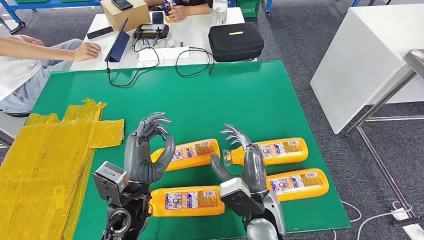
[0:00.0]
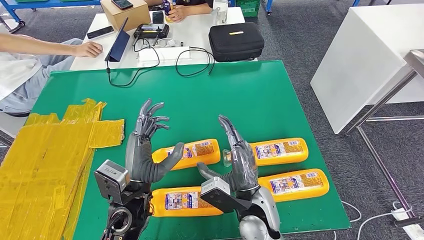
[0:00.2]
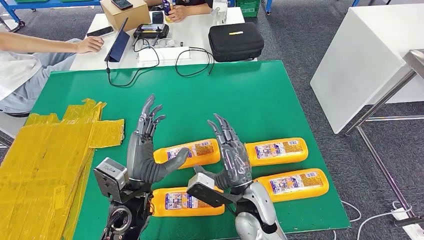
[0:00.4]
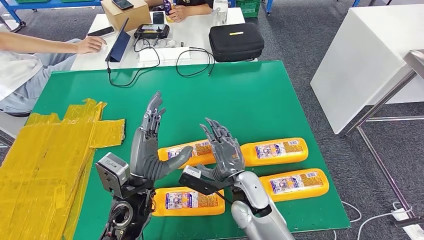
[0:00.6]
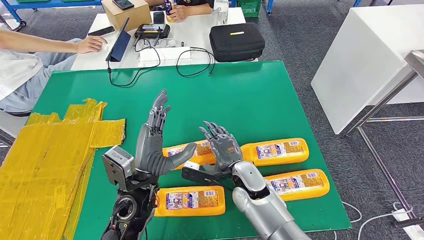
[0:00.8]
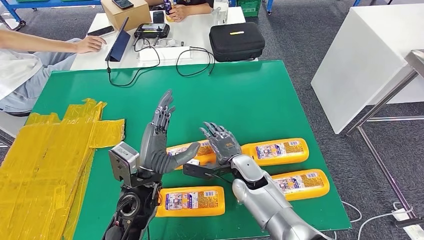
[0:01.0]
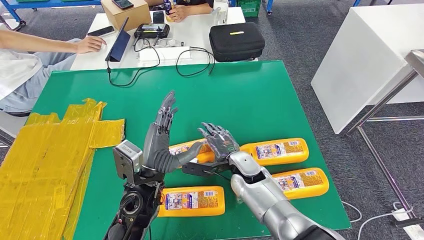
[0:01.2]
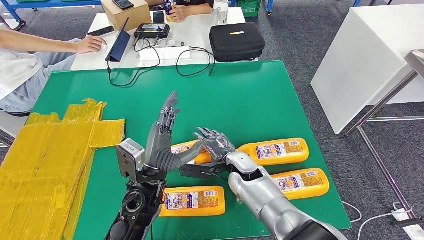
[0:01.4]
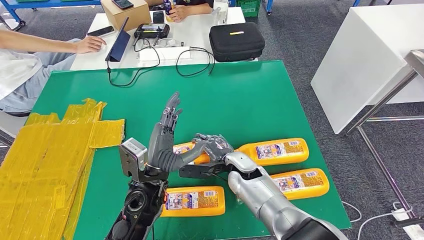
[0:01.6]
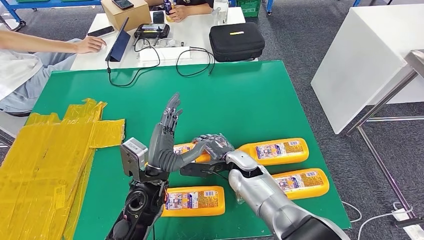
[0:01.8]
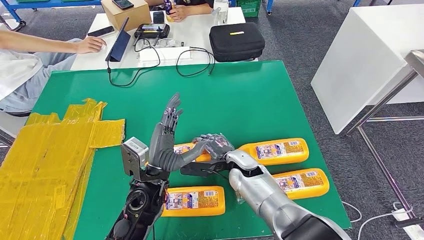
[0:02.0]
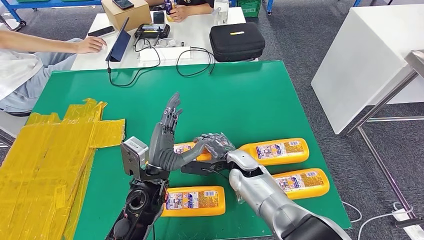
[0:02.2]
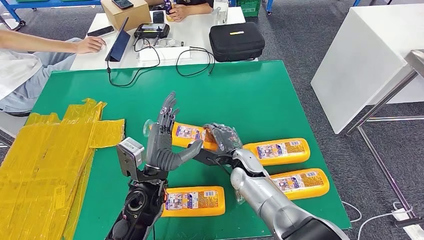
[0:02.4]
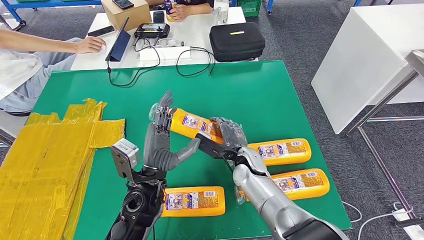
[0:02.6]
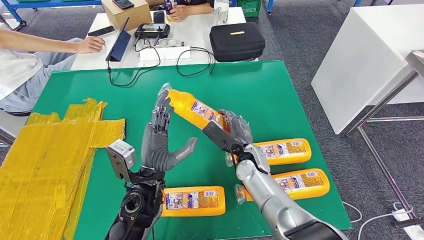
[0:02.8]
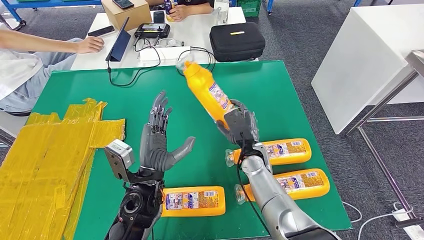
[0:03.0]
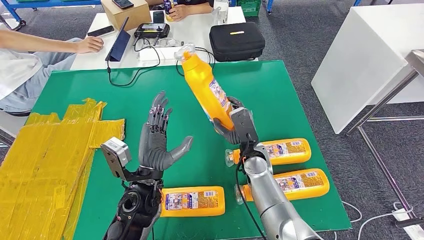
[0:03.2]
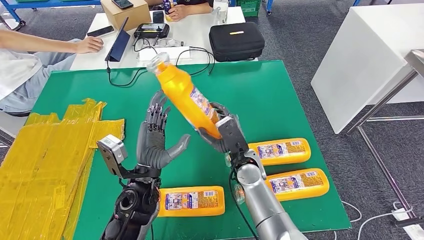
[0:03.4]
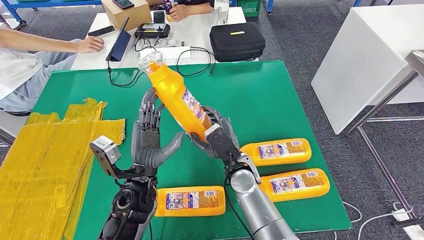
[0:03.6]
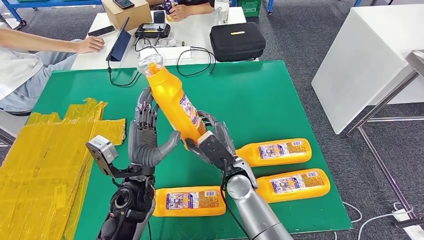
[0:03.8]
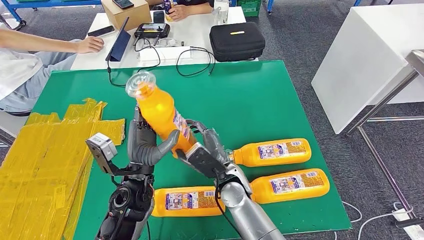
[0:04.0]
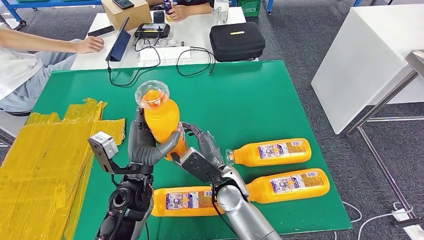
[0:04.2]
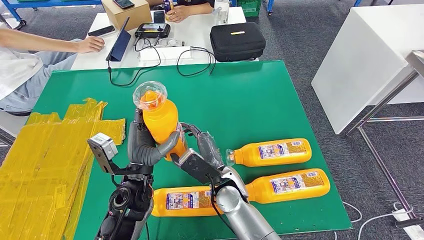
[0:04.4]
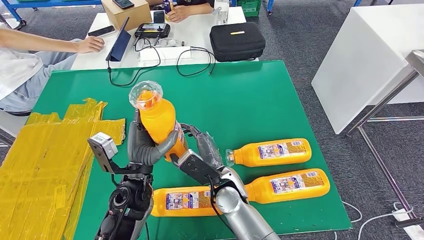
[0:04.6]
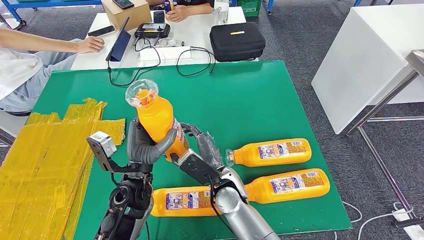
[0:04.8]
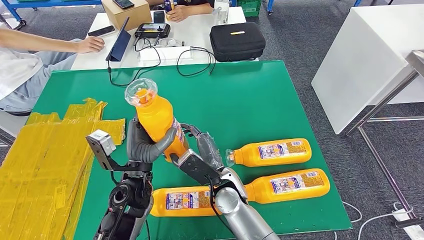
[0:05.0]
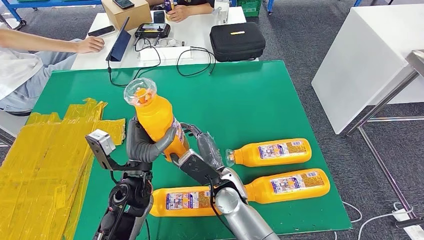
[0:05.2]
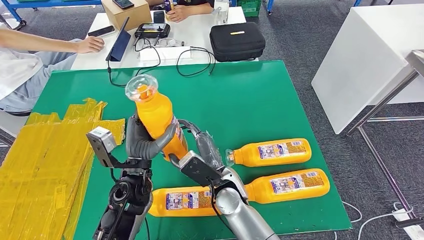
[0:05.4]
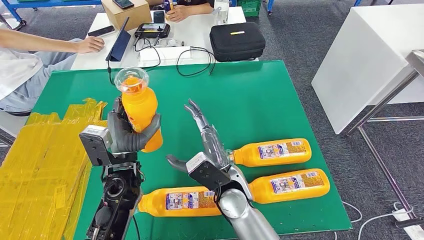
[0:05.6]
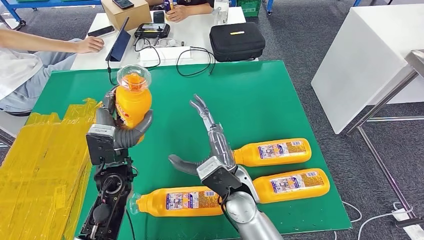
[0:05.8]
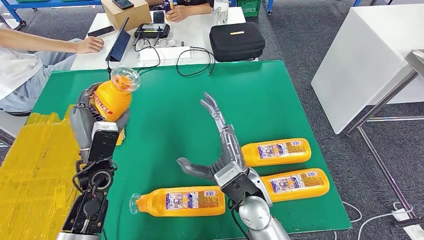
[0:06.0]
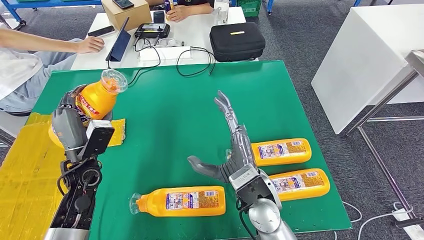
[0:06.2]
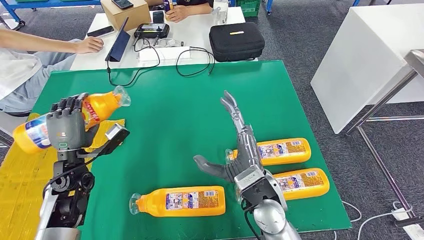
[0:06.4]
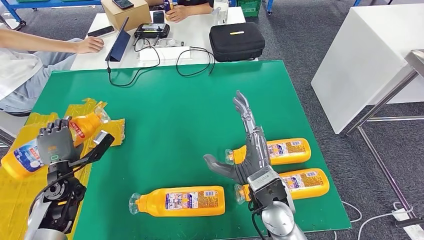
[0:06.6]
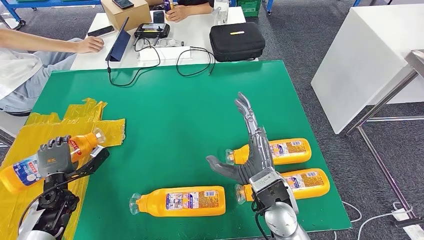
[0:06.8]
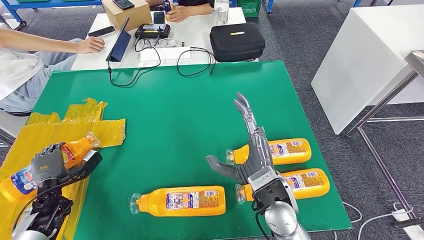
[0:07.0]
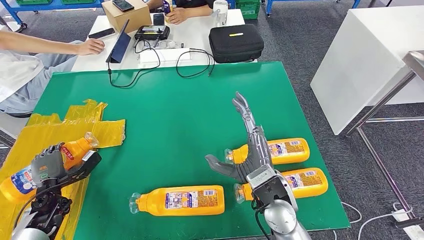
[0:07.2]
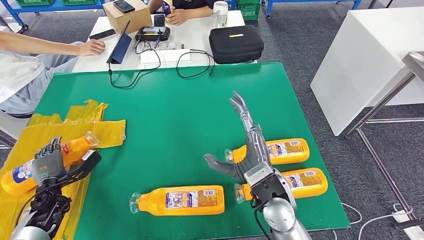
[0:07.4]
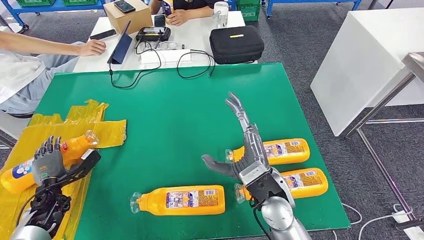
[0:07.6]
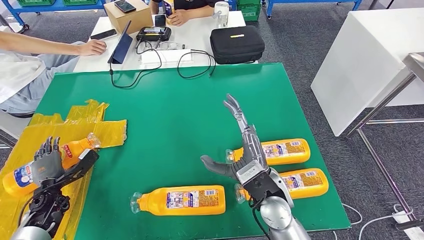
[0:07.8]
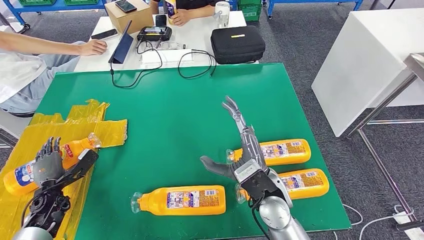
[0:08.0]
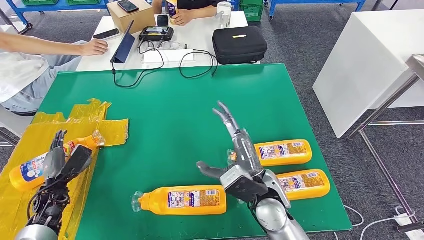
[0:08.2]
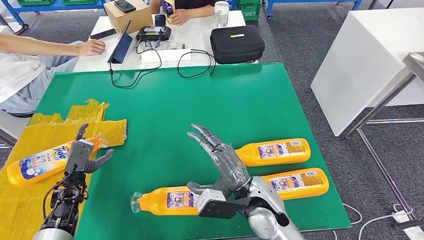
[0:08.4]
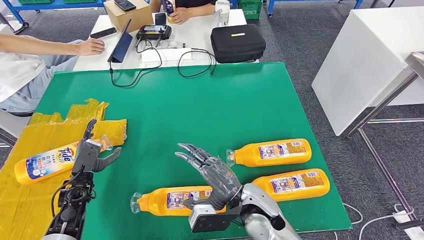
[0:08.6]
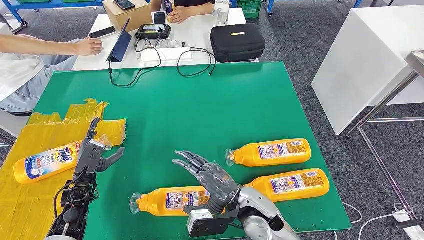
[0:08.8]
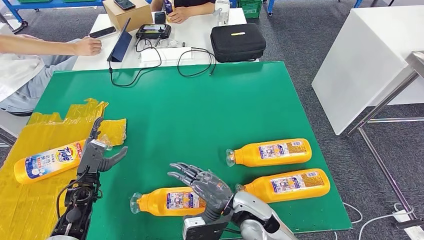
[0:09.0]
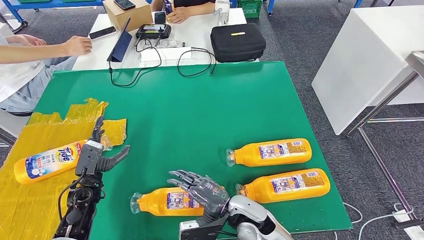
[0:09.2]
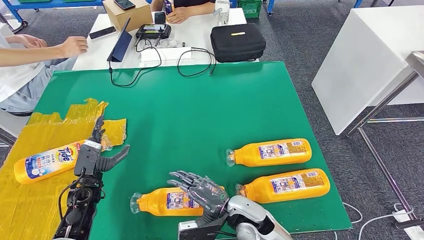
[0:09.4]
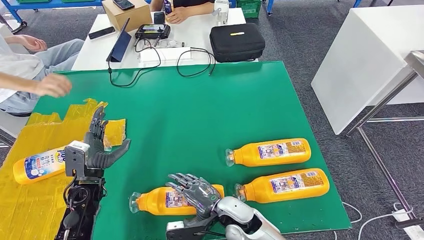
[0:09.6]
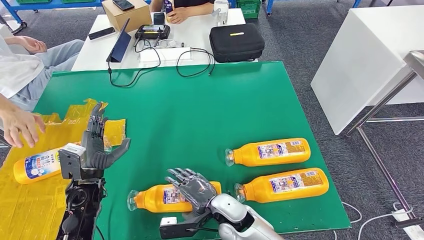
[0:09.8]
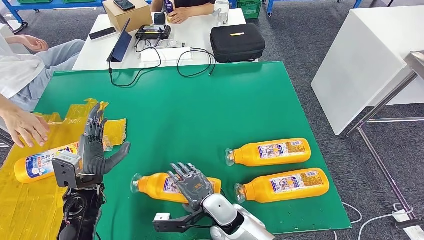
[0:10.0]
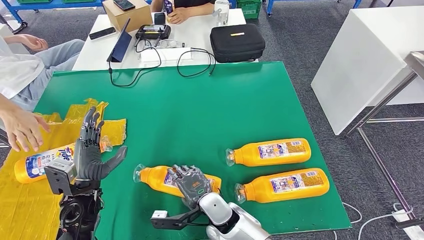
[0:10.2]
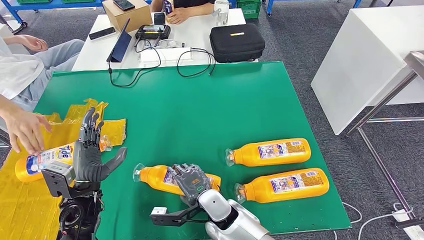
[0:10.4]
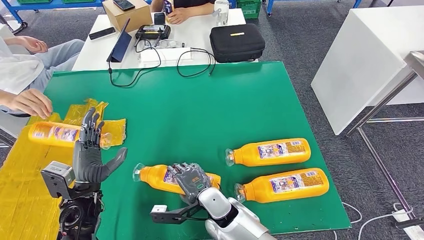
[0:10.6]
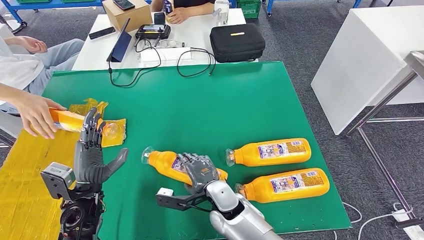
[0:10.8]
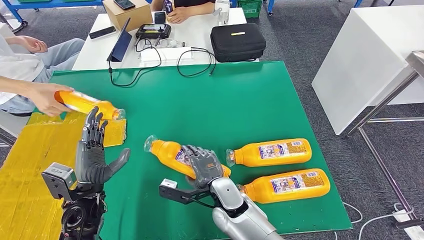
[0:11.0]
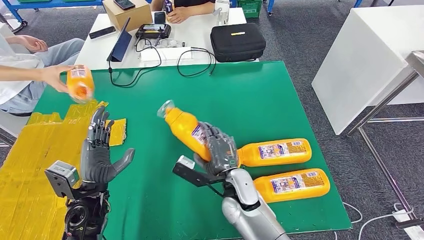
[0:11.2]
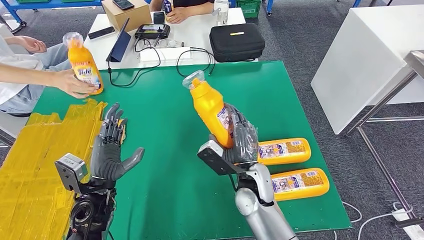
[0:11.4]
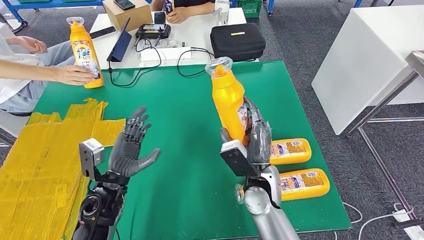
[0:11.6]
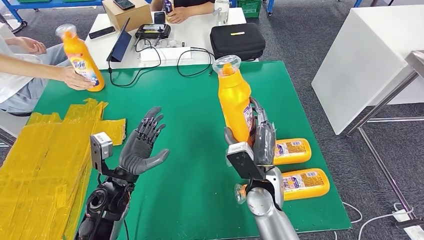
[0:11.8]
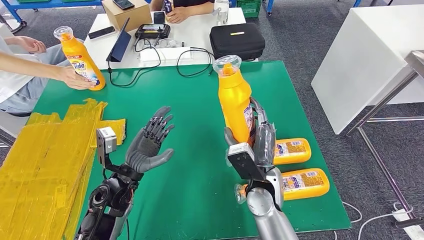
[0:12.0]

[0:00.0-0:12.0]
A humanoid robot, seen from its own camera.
Step, 0:00.0 to 0:04.6: Take the fast-moving consumer goods bottle from the table.
Step, 0:04.8 to 0:07.6: Flip the fast-moving consumer goods bottle to the front side.
0:03.0 to 0:04.4: The right hand heads to the left and backward, covering roughly 10 cm.
0:04.4 to 0:06.0: The right hand travels upward by approximately 5 cm. The left hand shifts roughly 10 cm to the left.
0:09.0 to 0:10.4: The right hand travels to the left by some 10 cm, while the left hand shifts some 5 cm upward.

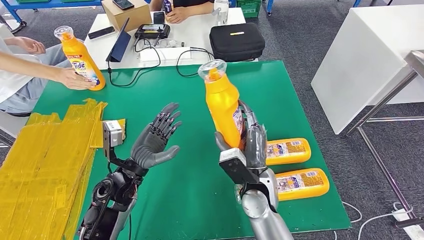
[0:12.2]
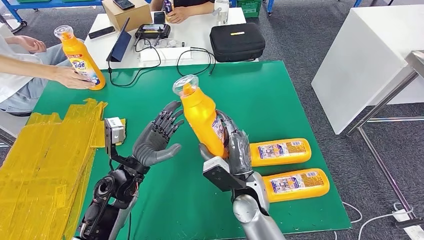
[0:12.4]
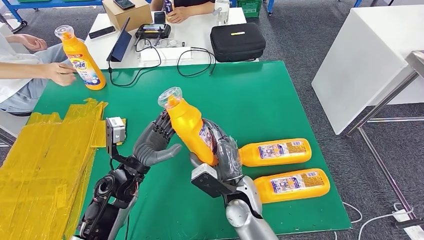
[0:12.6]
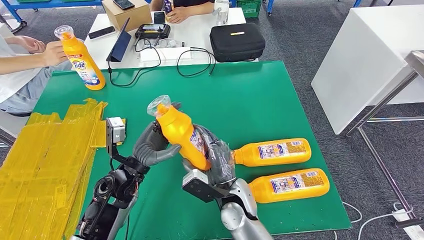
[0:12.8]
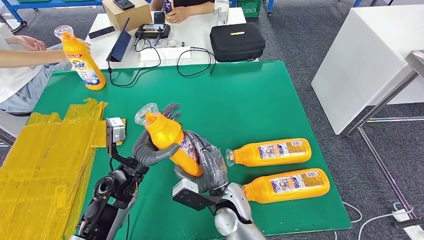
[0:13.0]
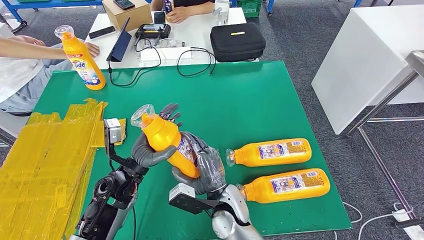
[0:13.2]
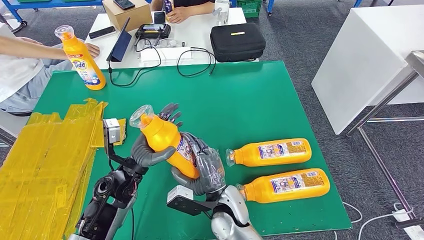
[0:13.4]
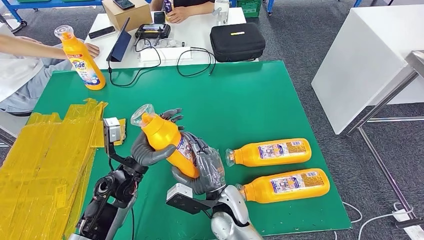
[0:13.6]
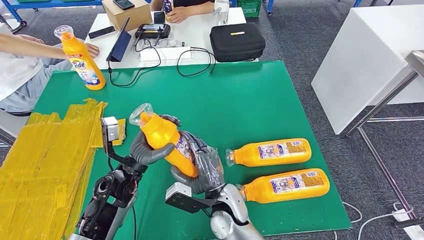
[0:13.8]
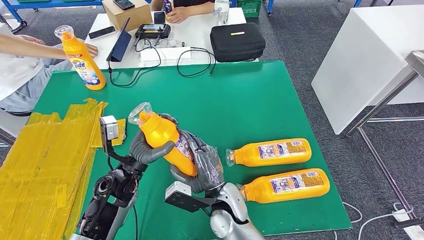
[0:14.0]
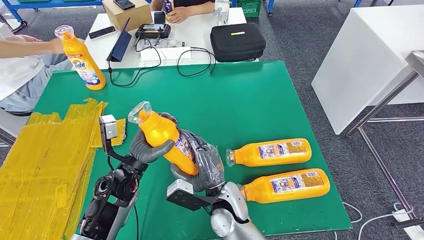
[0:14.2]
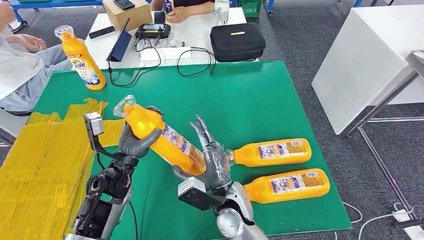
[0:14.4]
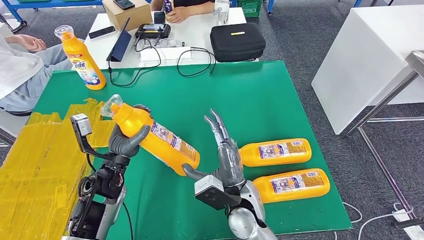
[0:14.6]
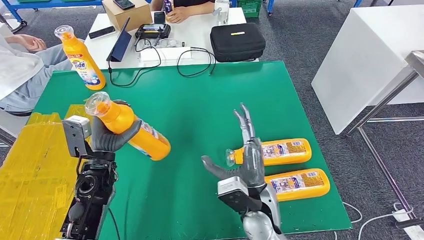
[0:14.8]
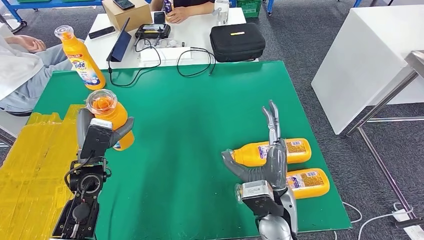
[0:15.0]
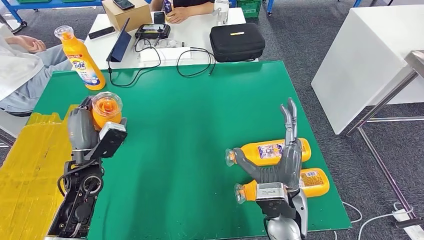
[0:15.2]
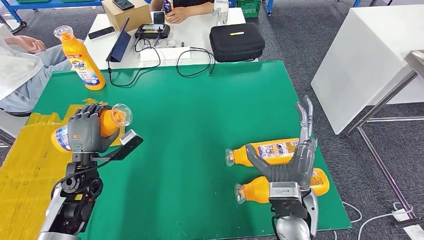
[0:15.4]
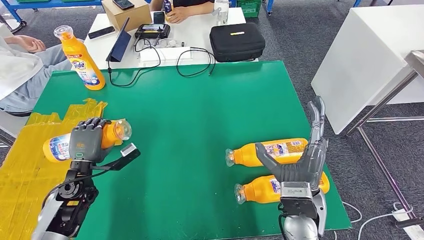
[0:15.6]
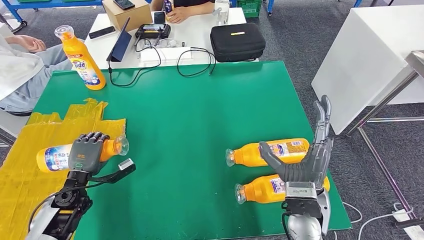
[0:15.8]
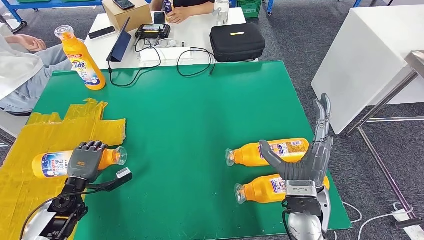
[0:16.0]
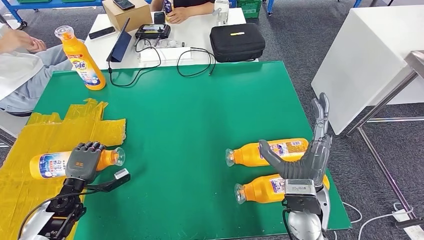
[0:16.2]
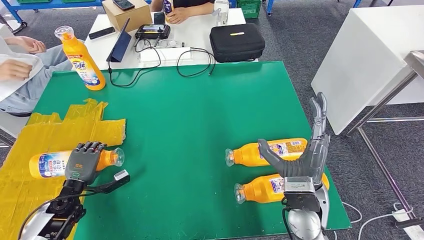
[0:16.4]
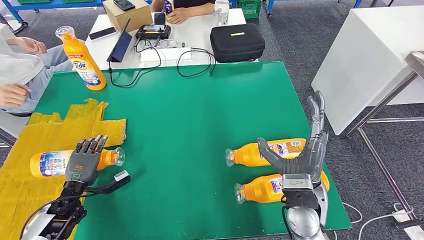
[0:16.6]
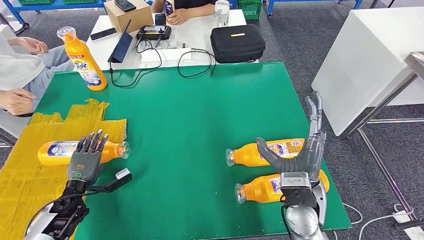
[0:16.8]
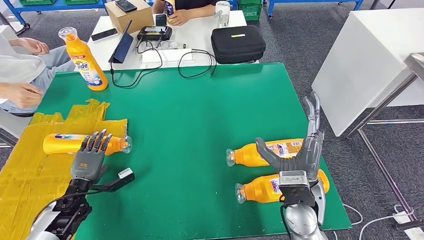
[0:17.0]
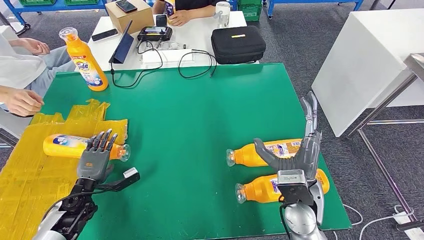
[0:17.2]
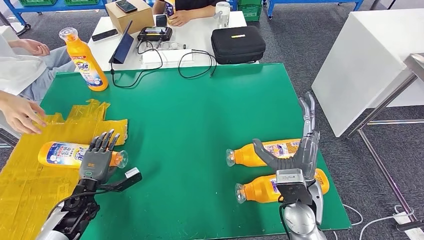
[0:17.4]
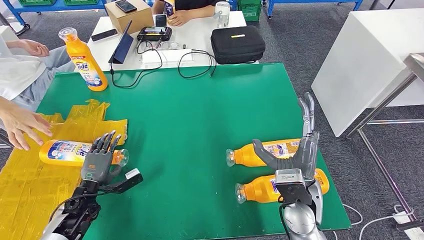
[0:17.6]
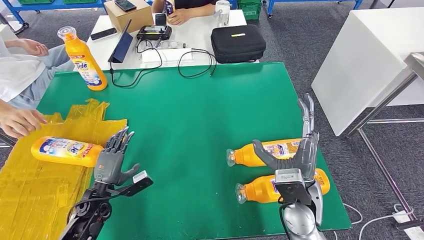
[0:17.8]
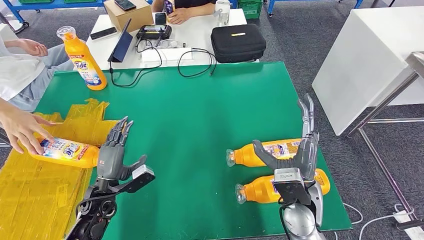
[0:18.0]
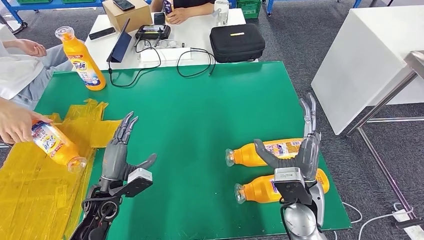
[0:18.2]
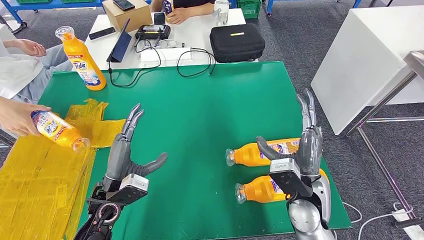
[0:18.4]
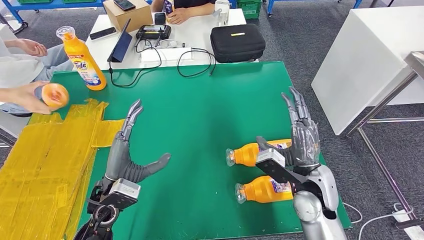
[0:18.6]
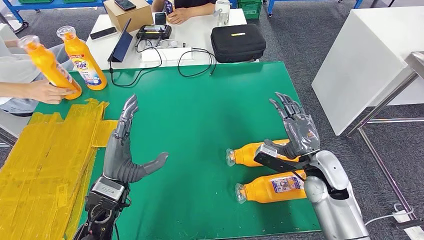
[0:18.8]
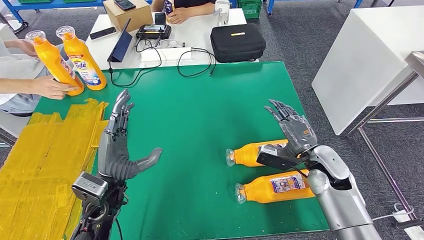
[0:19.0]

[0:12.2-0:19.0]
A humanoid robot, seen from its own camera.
Step, 0:13.0 to 0:16.2: Flip the fast-moving consumer goods bottle to the front side.
0:12.2 to 0:13.6: The right hand travels to the left by some 10 cm.
0:13.6 to 0:15.0: The left hand goes approximately 5 cm to the left, while the right hand heads to the right and upward, covering about 10 cm.
0:15.0 to 0:16.2: The right hand is displaced to the right by some 5 cm; the left hand moves downward and to the left, approximately 15 cm.
